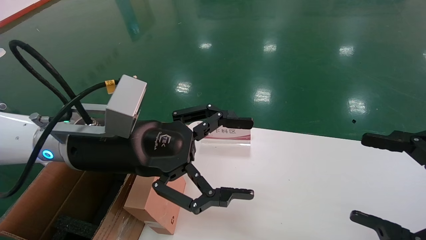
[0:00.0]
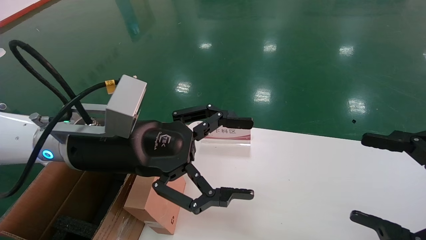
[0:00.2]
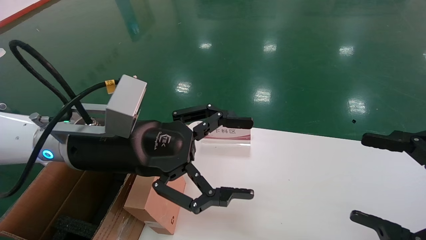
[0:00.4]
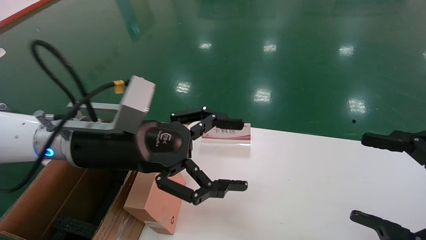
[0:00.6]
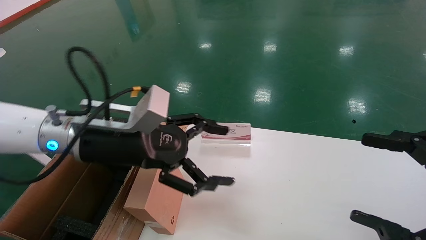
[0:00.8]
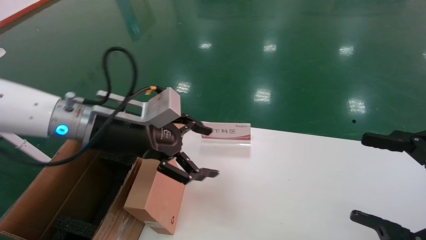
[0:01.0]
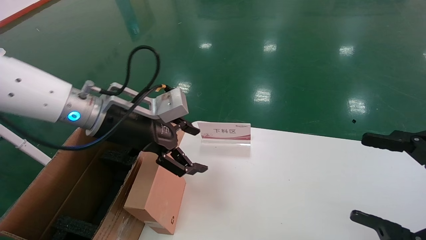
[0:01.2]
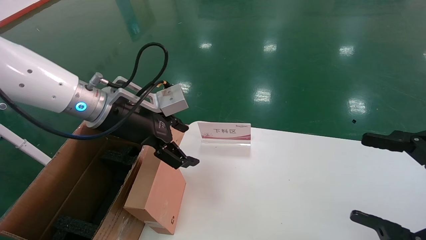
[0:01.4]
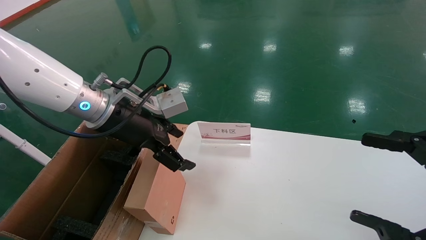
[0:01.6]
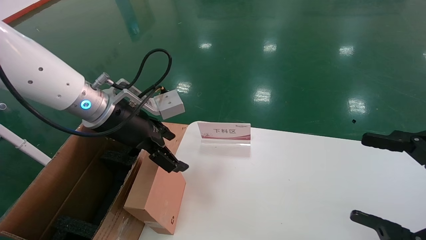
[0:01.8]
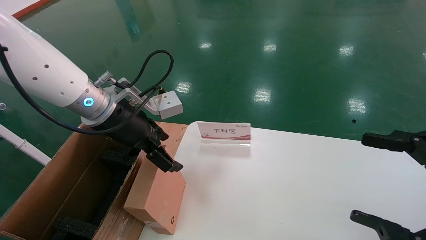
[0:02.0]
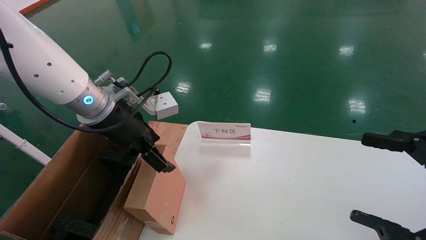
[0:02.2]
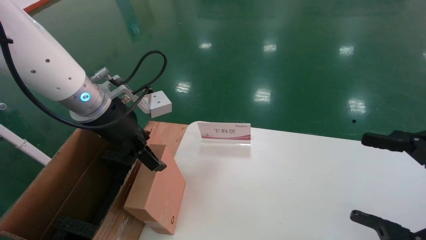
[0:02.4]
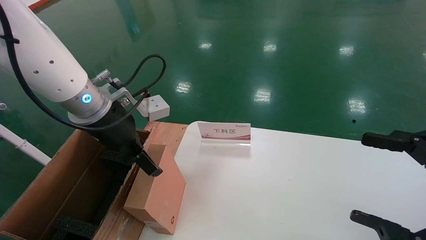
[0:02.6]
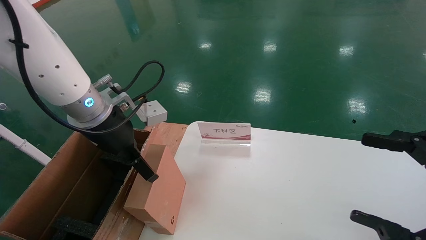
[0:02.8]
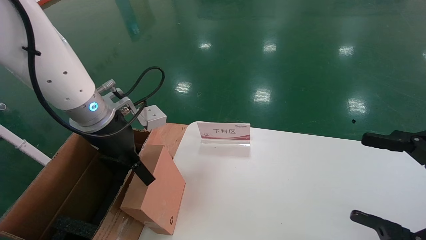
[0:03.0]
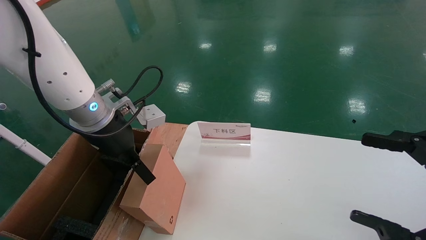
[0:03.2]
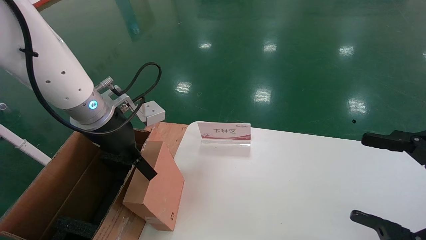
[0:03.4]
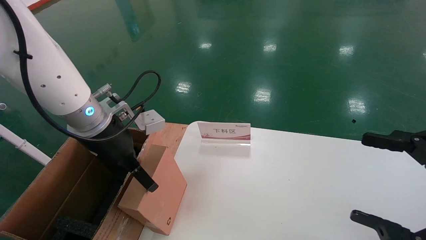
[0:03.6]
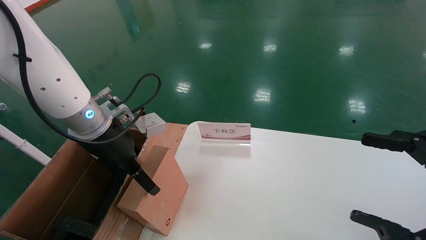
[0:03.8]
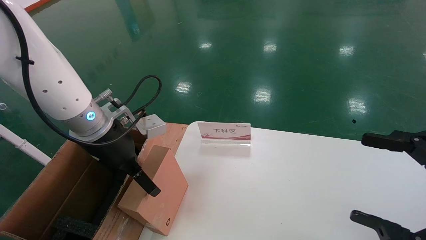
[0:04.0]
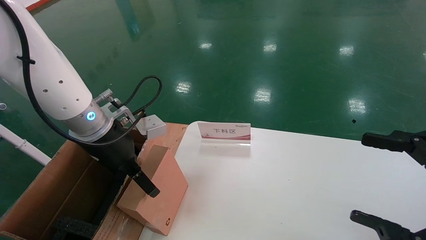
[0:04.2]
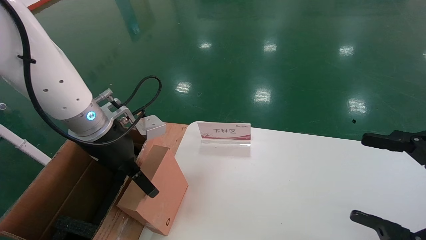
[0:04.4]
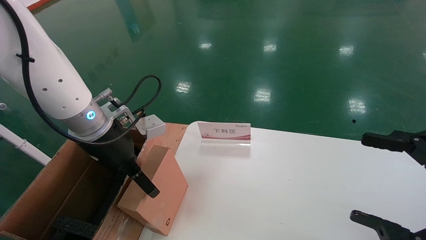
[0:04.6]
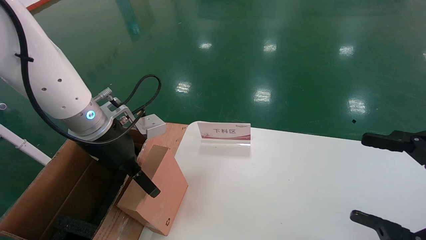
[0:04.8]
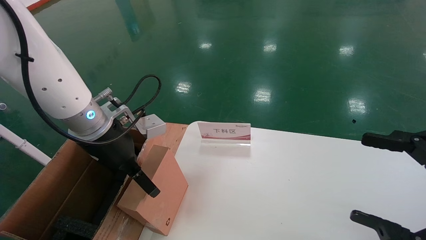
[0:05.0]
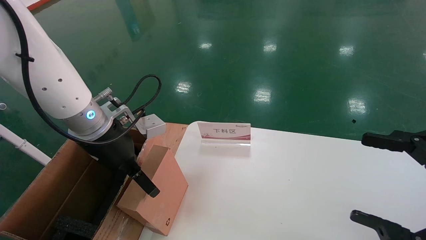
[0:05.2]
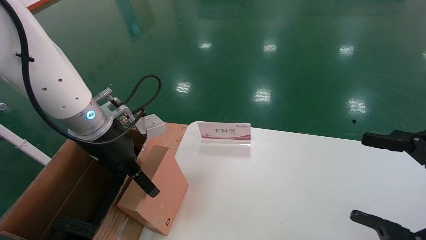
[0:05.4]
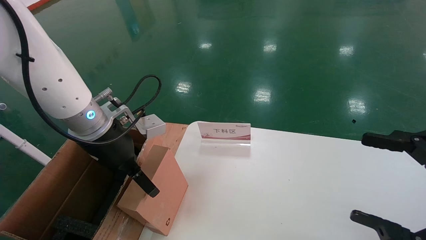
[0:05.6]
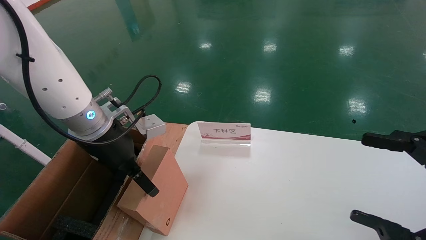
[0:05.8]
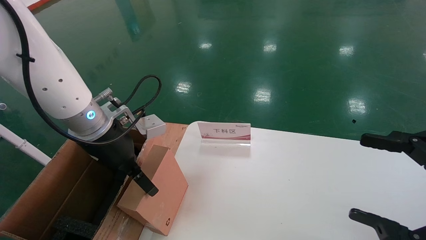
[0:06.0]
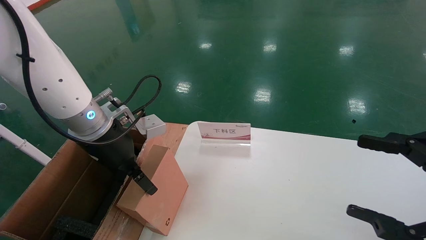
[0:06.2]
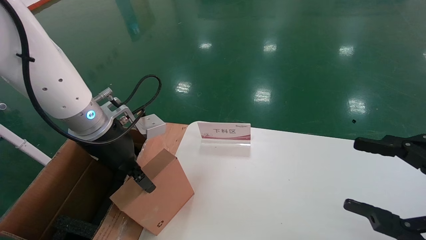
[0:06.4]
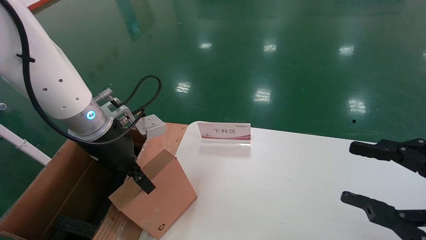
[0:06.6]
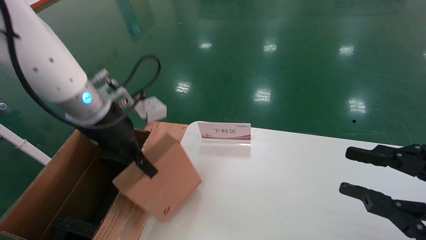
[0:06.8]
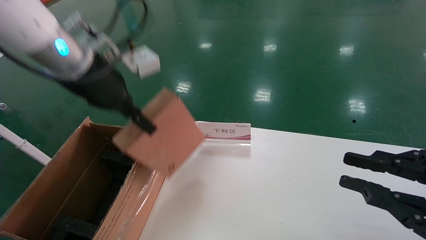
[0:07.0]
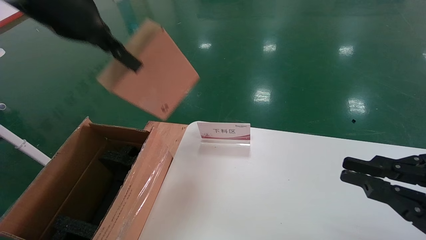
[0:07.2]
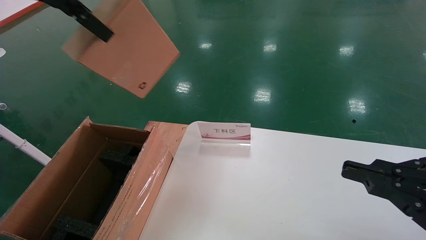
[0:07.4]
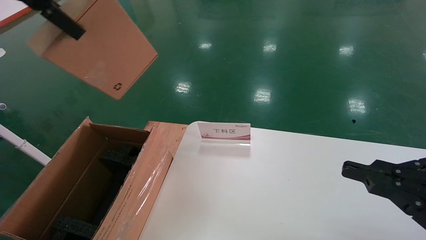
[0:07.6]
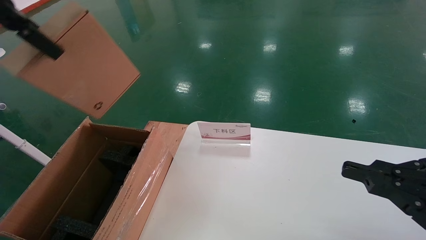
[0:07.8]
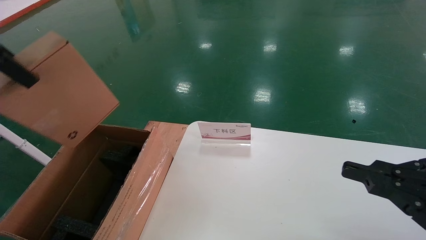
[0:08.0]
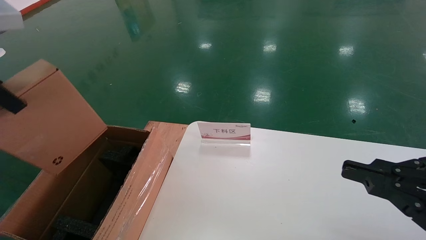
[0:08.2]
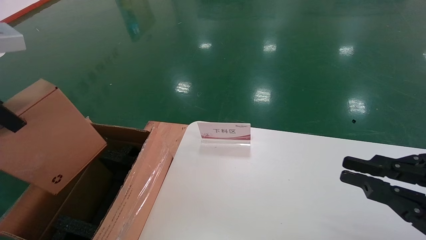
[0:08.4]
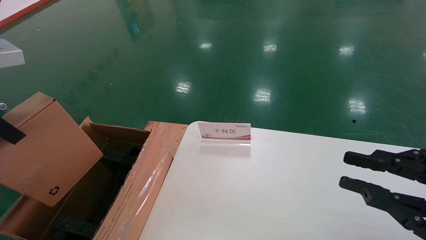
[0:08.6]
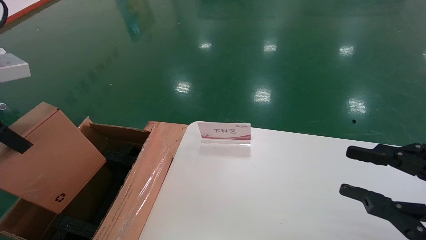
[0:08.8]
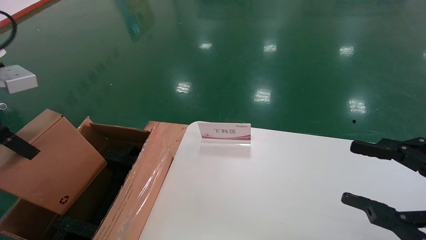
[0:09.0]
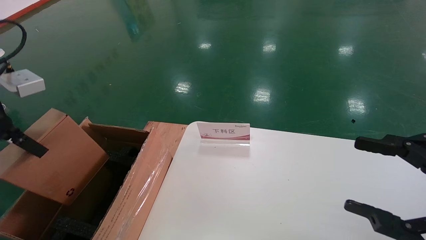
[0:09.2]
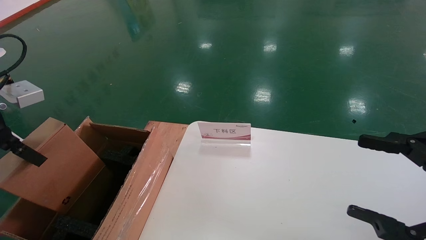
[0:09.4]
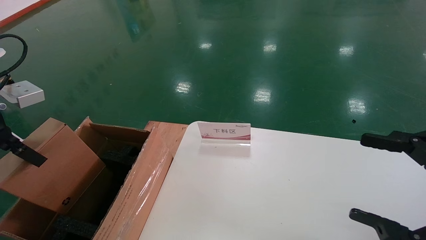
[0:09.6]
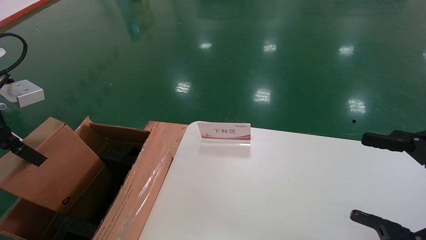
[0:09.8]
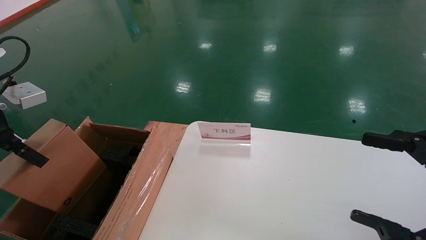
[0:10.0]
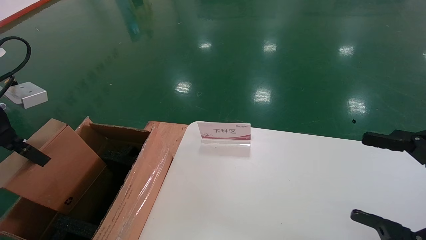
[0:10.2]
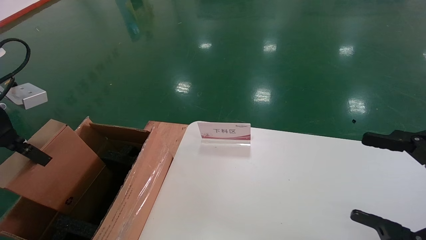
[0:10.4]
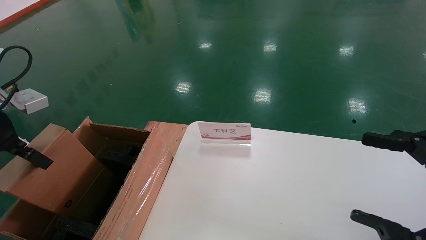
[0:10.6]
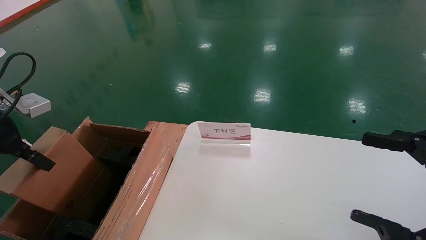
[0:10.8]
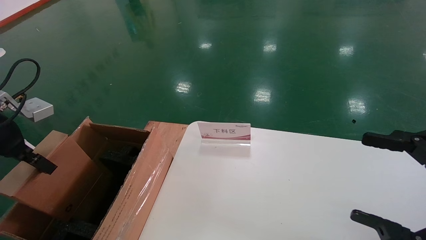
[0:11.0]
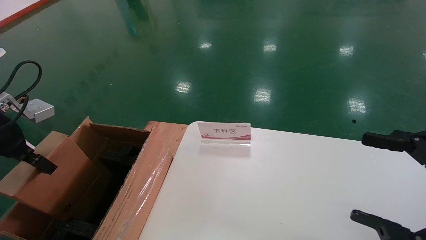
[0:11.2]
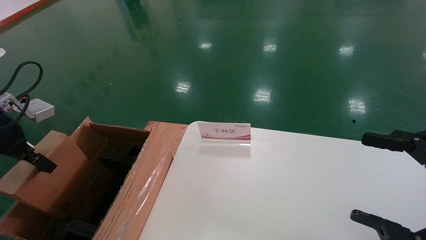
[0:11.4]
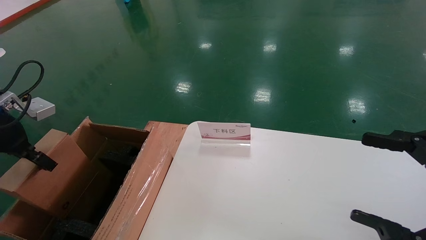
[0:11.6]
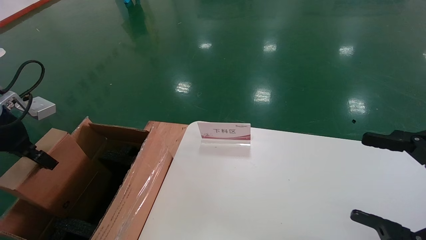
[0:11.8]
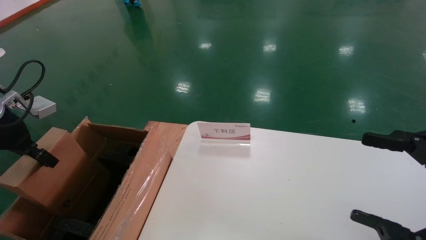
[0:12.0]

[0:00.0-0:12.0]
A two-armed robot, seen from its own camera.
Task of the whole recording: pick up the small cardboard box and load it into the large cardboard box.
Step, 0:01.2 to 0:06.4: Pick up the mouse and power cord box.
0:00.0 to 0:01.6: The left gripper goes roughly 5 cm forward.
0:03.0 to 0:04.4: The grippers make only small movements.
0:04.4 to 0:06.0: Both grippers stay put.
0:06.0 to 0:07.6: The left gripper moves upward, about 25 cm, and closes, while the right gripper closes.
0:07.6 to 0:09.0: The right gripper opens; the left gripper moves downward and to the left, approximately 20 cm.
0:09.0 to 0:10.4: The left gripper ends up approximately 5 cm from where it was, while the right gripper opens.
0:10.4 to 0:12.0: The left gripper changes place by some 5 cm.

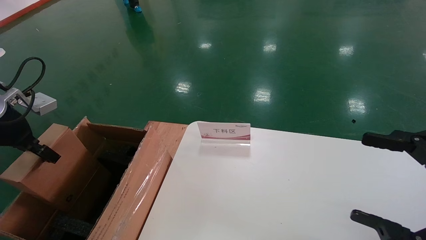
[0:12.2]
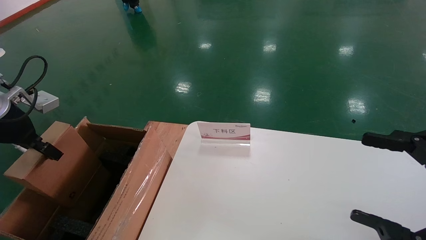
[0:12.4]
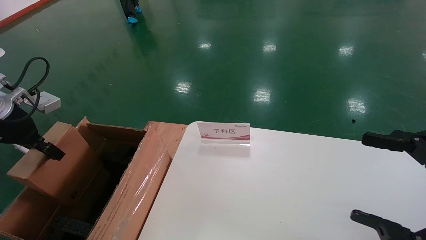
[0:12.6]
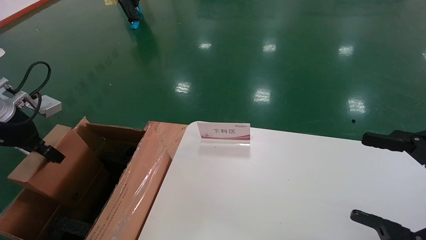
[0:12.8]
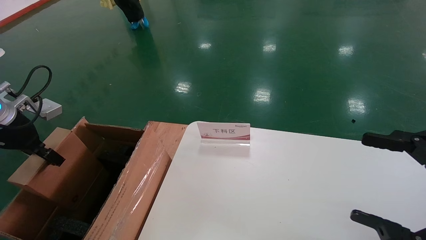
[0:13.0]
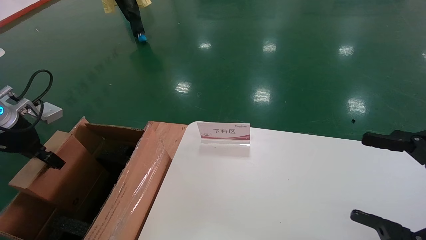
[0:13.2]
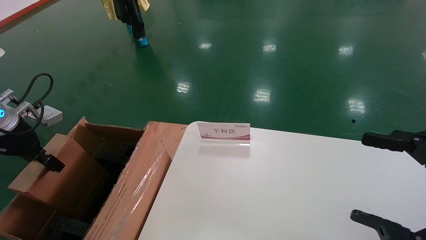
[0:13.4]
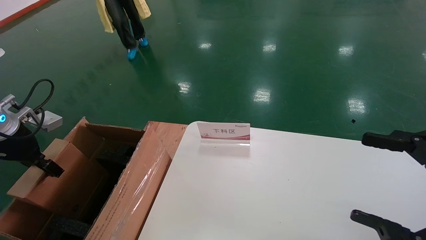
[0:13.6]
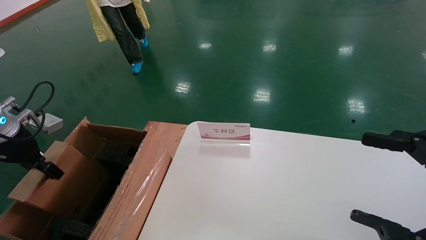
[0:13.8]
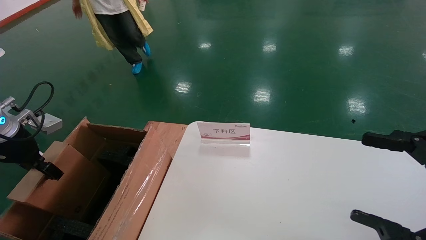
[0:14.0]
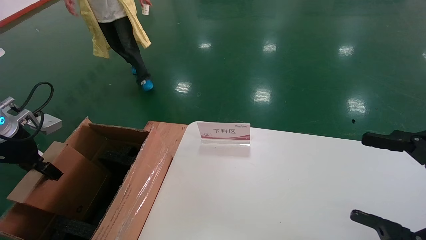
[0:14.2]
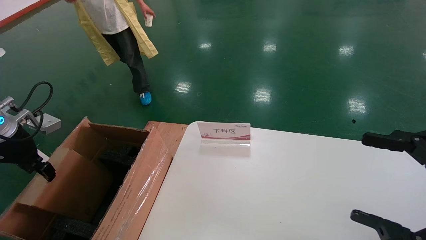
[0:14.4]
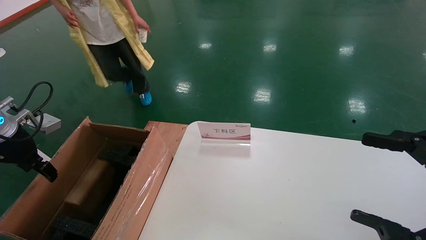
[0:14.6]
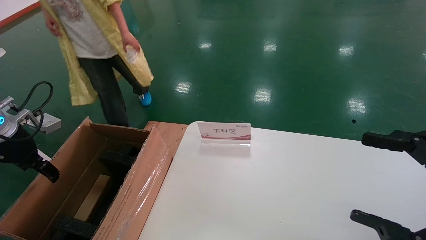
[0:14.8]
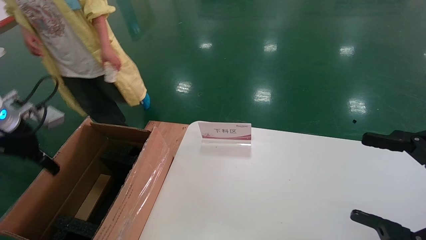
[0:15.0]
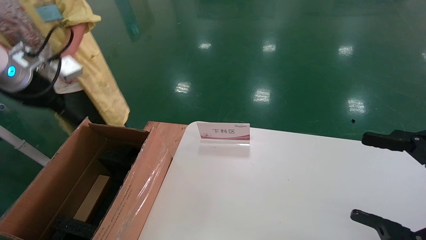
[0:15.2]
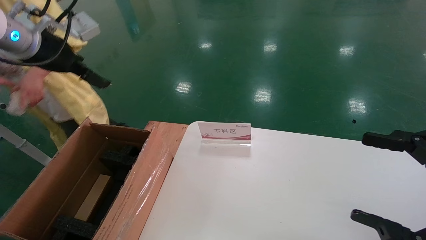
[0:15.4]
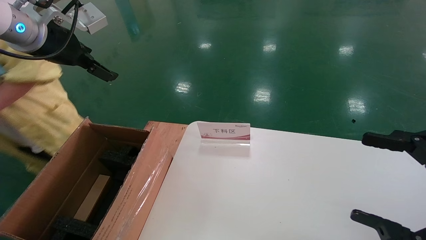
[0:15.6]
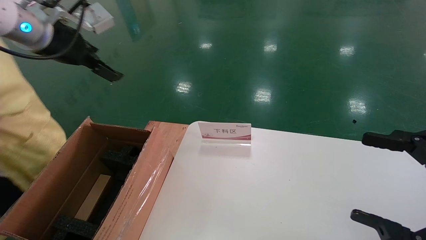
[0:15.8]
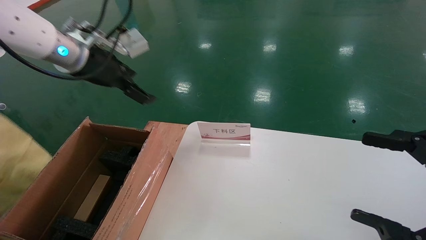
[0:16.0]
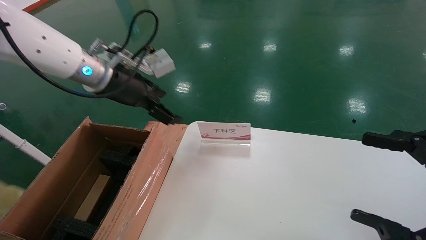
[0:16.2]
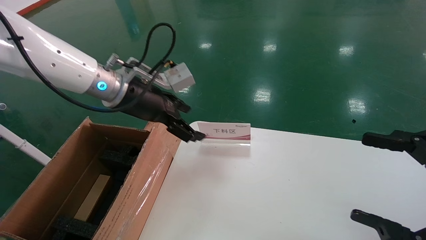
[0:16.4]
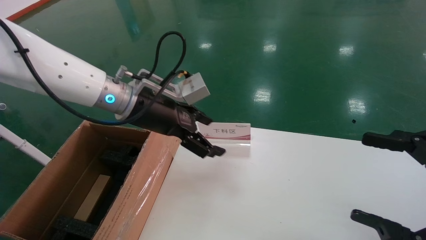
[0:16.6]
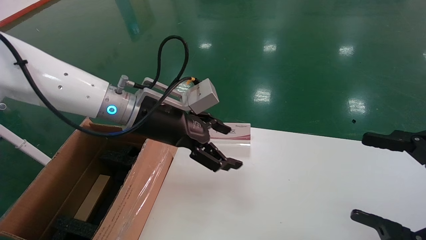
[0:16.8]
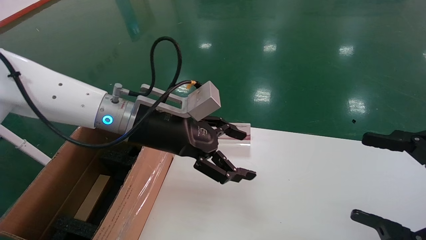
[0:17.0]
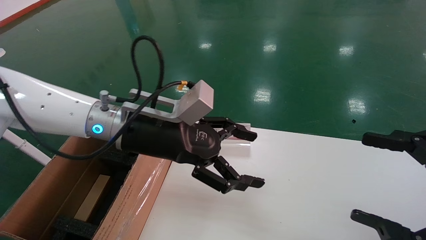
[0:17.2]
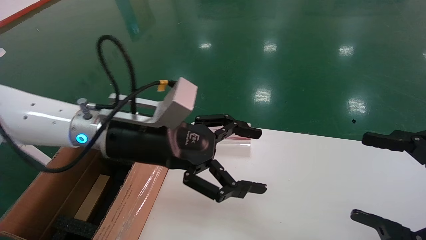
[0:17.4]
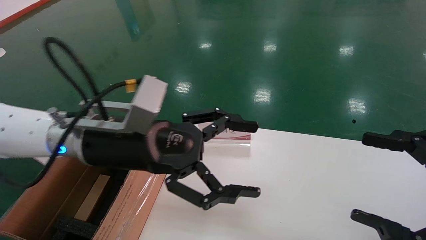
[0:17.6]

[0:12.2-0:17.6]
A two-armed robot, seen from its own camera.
Task of the whole recording: pick up the small cardboard box and load it into the large cardboard box.
Step, 0:12.2 to 0:14.8: Place the mouse and power cord box into the case.
0:12.2 to 0:13.6: The left gripper moves about 5 cm.
0:13.6 to 0:15.0: The left gripper opens up.
0:15.0 to 0:16.2: The left gripper shifts roughly 20 cm to the right.
0:16.2 to 0:17.6: The left gripper goes approximately 15 cm backward, to the right and downward.
